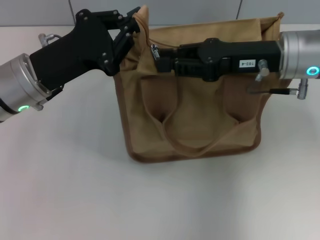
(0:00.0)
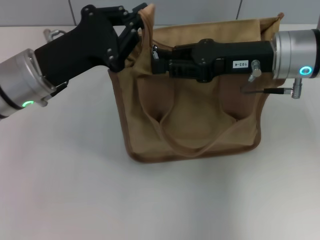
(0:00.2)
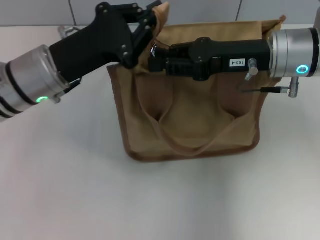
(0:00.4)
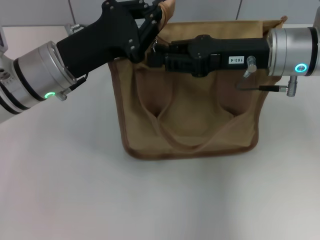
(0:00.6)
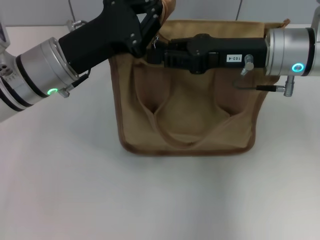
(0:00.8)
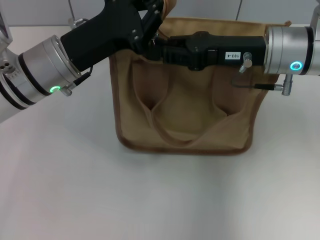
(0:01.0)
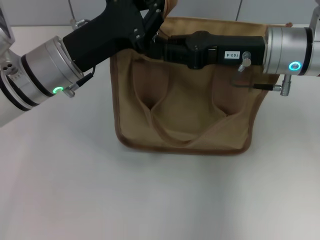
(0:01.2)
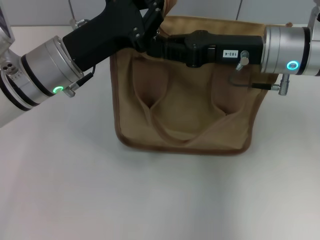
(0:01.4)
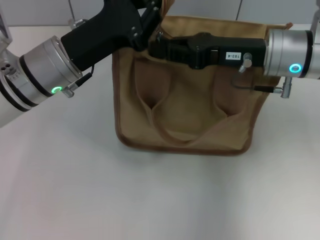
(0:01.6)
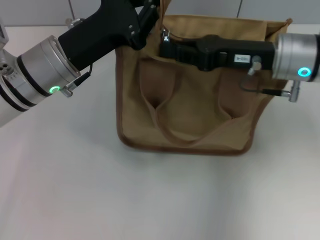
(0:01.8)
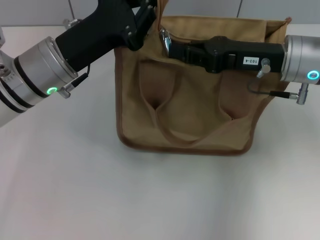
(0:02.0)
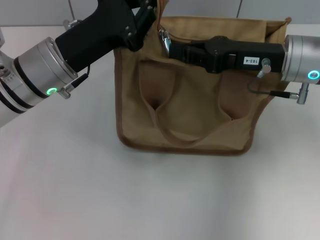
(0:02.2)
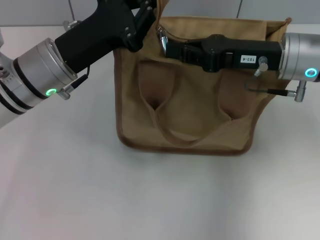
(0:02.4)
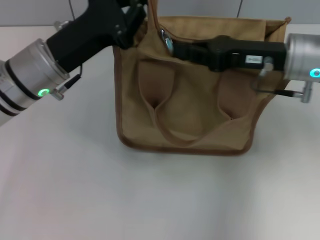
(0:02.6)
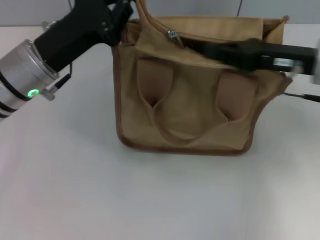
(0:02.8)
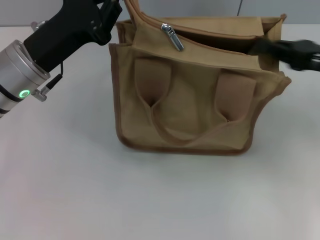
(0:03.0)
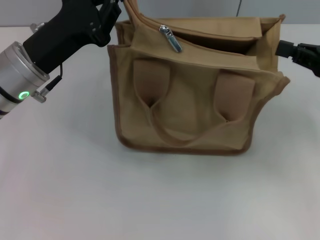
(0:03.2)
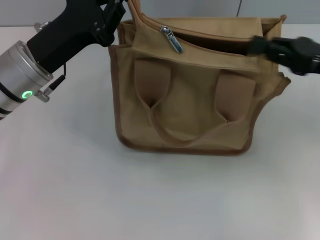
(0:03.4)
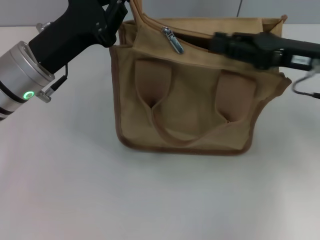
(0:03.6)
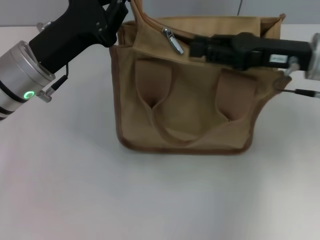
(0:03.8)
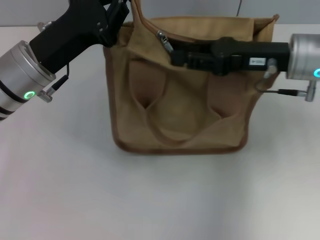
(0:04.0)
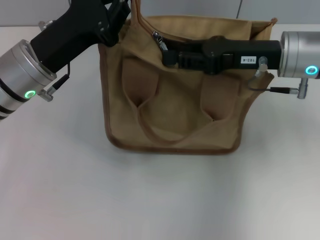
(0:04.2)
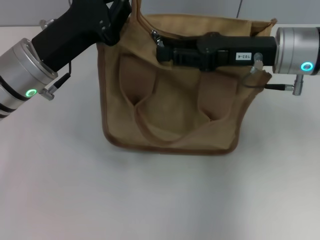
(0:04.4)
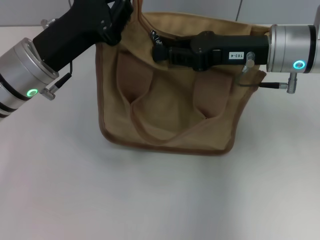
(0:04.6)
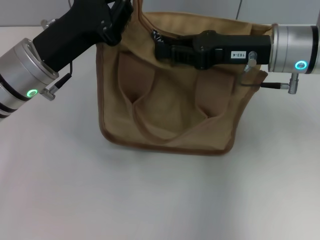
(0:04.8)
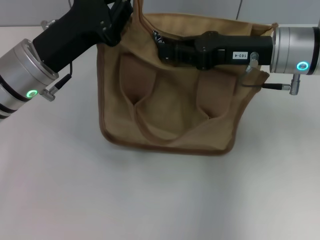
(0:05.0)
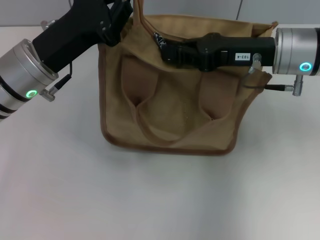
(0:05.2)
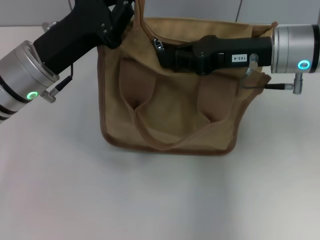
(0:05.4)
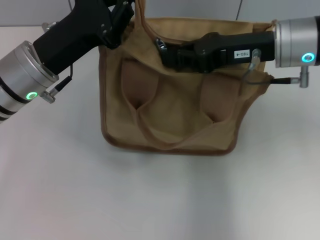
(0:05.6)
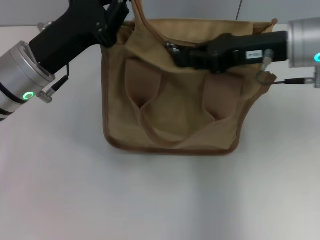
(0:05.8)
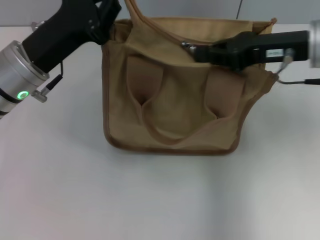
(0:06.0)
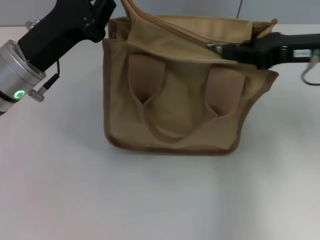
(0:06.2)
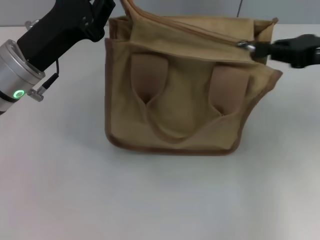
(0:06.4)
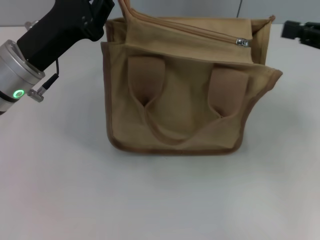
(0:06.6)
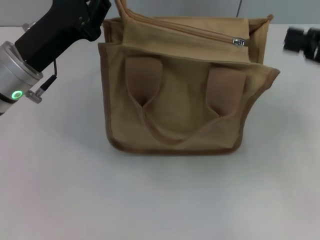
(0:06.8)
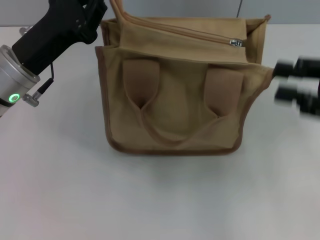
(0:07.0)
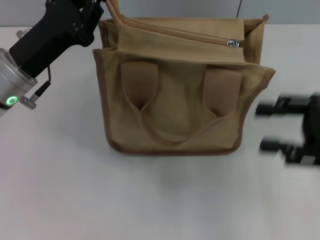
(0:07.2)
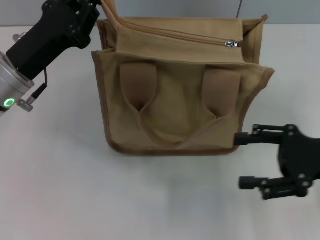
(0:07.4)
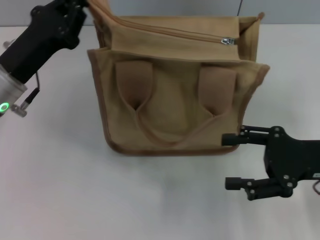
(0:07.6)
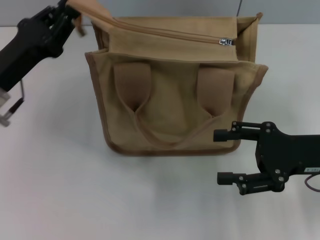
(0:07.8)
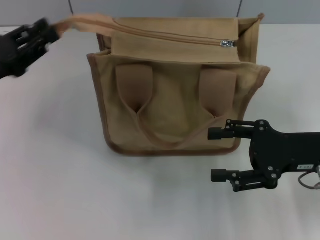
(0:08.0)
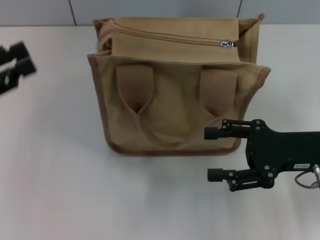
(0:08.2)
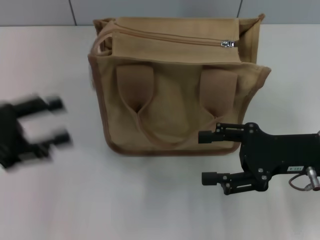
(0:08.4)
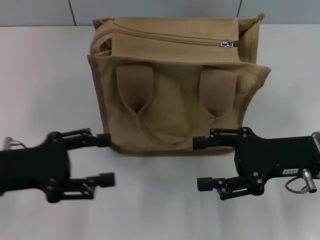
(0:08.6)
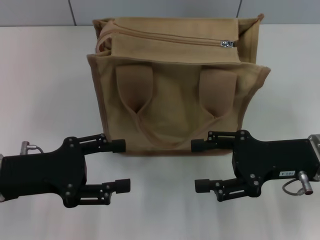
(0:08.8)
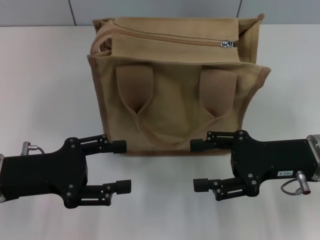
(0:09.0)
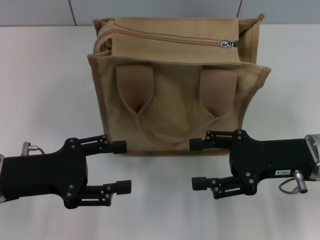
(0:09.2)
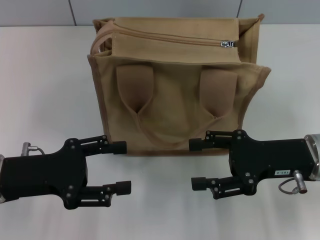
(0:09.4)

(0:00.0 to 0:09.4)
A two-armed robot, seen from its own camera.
Step, 0:00.0 - 0:06.4: Pull up the zipper with your right hand.
Step, 0:06.6 - 0:08.0: Grab the zipper with your left hand.
0:01.6 - 0:03.2: The right gripper is displaced to the right and backward by approximately 15 cm.
0:03.2 - 0:04.8: The right gripper shifts about 15 cm to the left and forward.
0:04.8 - 0:06.2: The right gripper moves to the right, approximately 10 cm.
0:06.2 - 0:07.8: The left gripper changes place by about 5 cm. The right gripper heads downward and backward, covering roughly 15 cm, and opens.
0:07.8 - 0:09.4: The left gripper moves backward, approximately 10 cm, travels to the left and back again, some 10 cm each way, and opens.

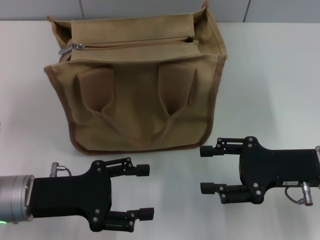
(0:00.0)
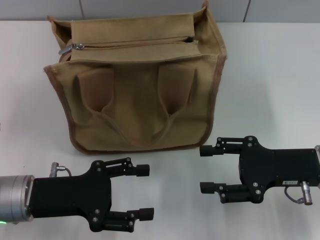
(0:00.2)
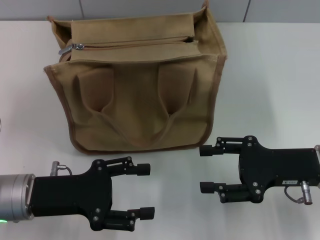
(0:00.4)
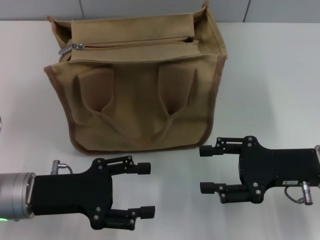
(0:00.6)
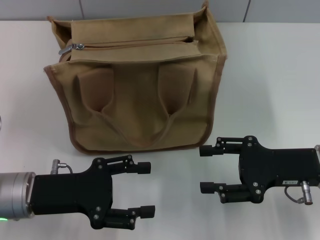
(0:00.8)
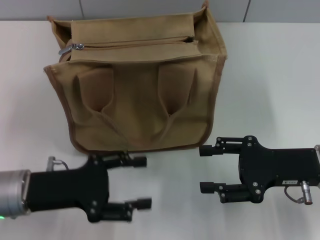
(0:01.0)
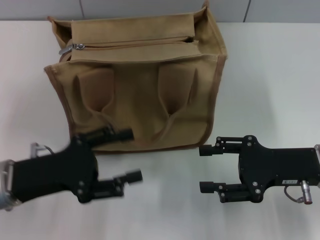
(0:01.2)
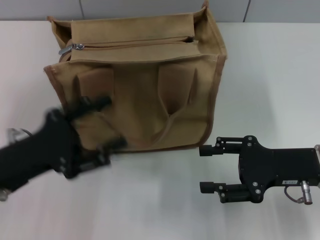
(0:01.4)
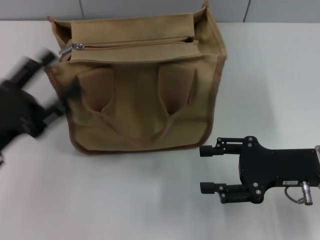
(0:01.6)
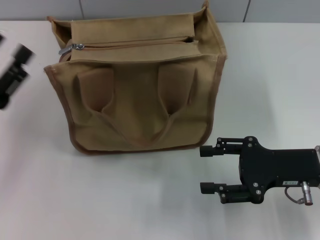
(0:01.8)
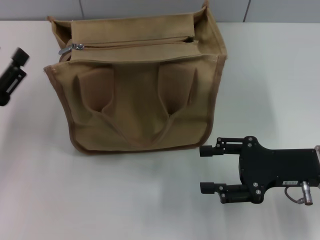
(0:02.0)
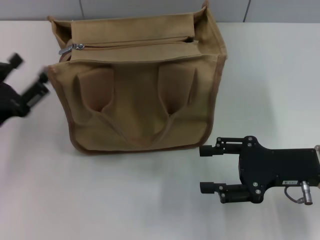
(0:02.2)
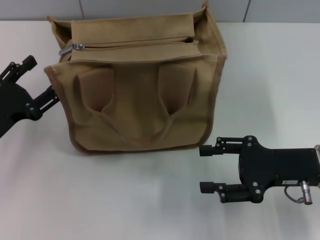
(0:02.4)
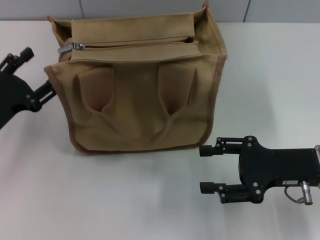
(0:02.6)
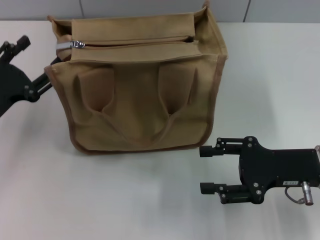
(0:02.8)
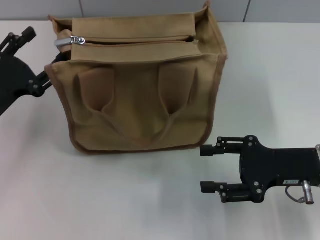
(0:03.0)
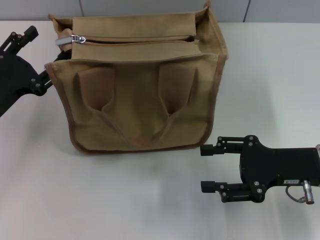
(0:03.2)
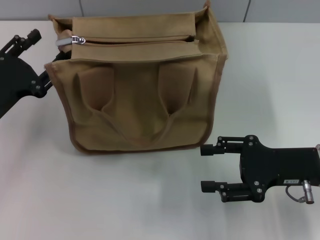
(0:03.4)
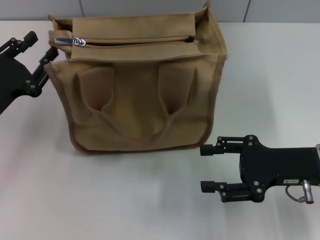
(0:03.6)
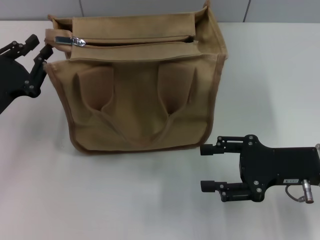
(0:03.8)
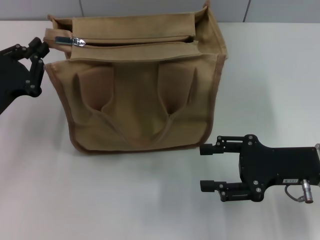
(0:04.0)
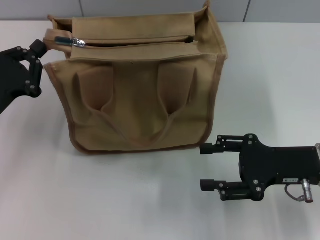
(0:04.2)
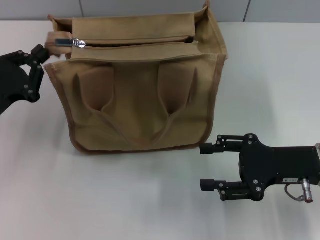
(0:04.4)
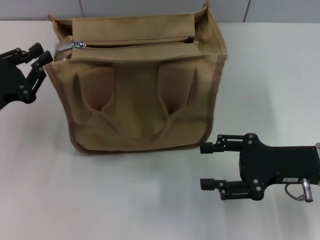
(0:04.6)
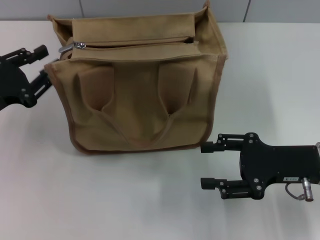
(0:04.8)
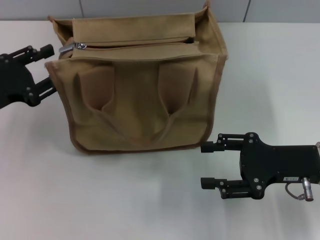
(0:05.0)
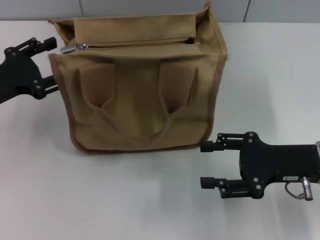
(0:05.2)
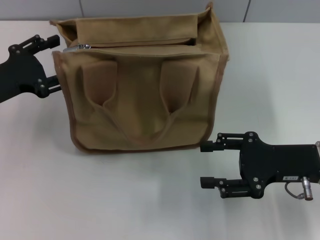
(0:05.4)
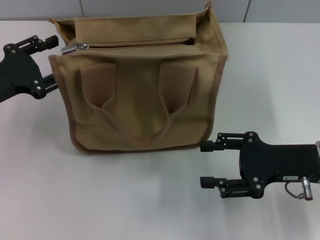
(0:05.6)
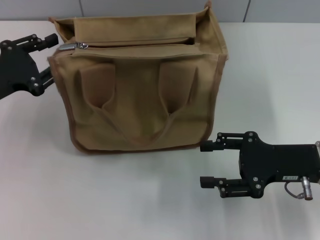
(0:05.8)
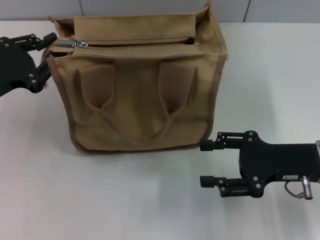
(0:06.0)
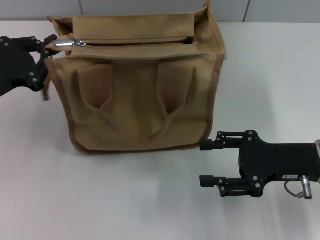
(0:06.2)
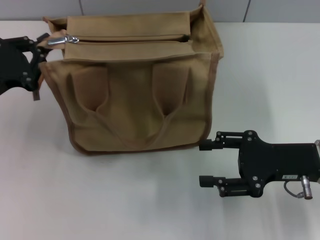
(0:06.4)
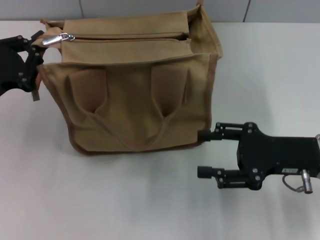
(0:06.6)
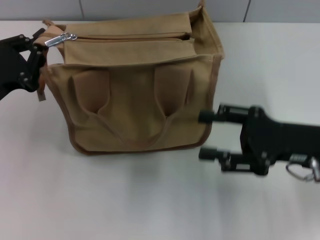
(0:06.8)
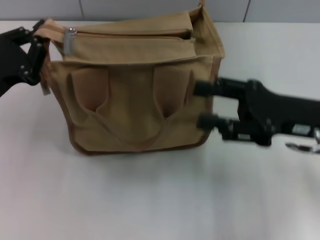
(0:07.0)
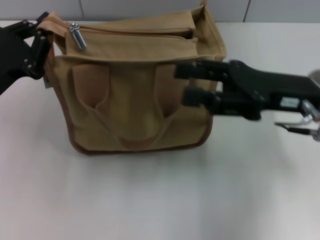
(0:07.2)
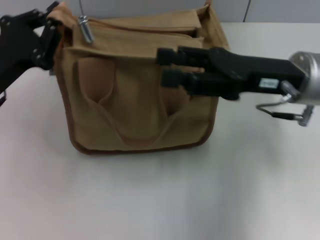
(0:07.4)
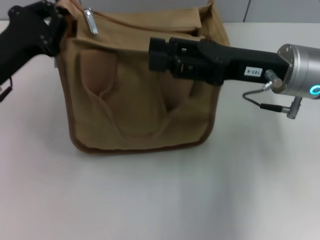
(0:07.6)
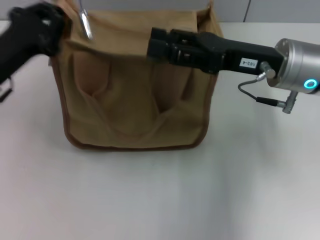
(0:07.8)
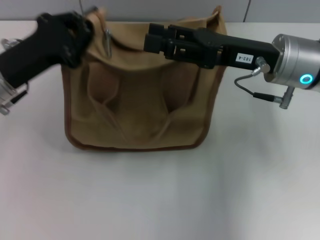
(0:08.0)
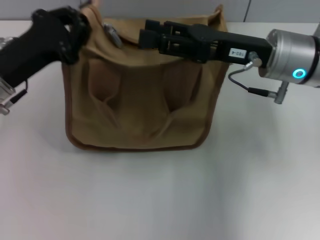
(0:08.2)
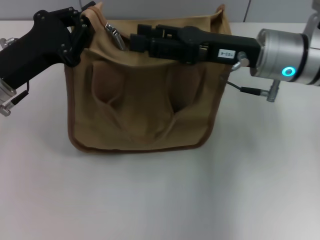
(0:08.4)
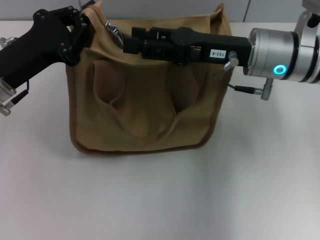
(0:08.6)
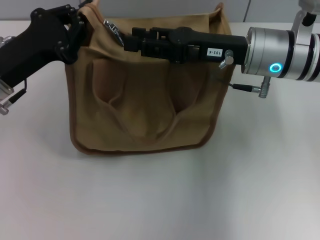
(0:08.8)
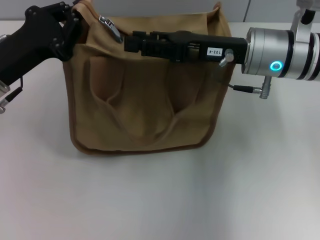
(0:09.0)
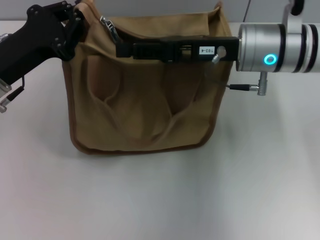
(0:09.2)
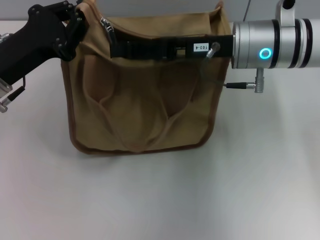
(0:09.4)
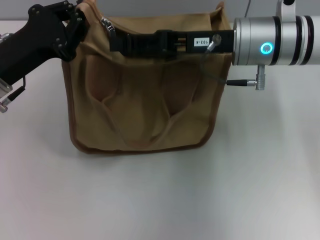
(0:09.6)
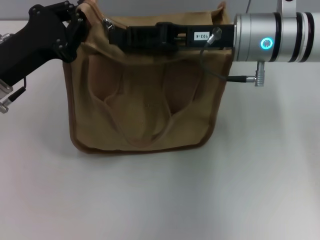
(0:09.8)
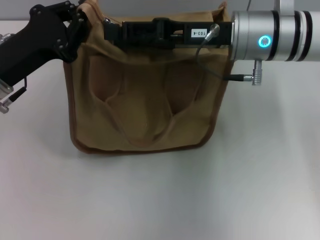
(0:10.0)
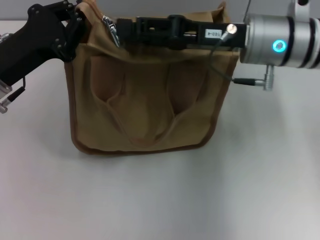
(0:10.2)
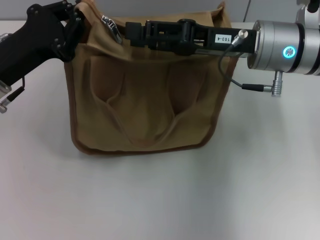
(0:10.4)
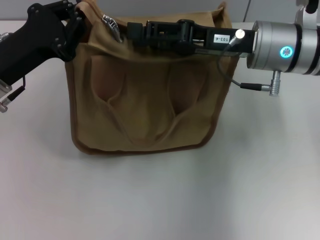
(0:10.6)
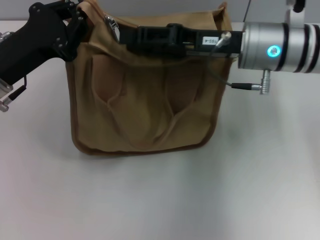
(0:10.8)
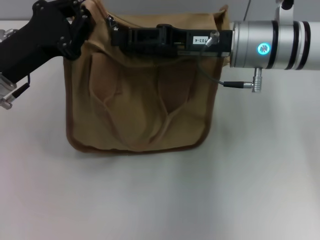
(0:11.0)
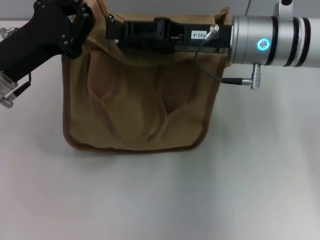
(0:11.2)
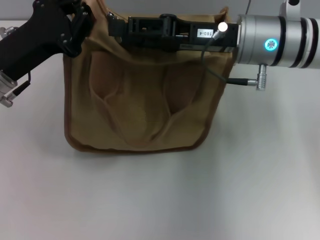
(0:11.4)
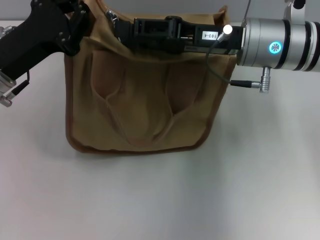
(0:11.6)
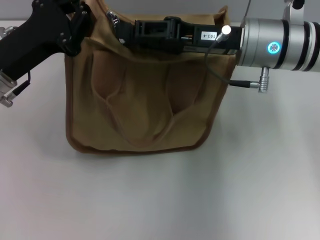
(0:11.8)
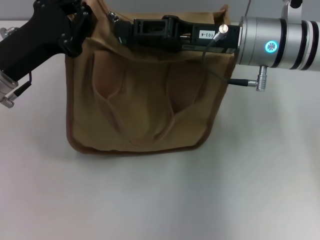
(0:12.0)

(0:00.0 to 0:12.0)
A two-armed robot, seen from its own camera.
0:00.0 - 0:01.6: The left gripper changes place by approximately 5 cm.
0:01.6 - 0:03.0: The left gripper goes roughly 5 cm forward.
0:03.0 - 0:04.4: The left gripper closes.
0:04.4 - 0:06.0: The left gripper opens up.
0:06.0 - 0:07.6: The left gripper closes. The right gripper goes some 10 cm upward, forward and to the left.
0:07.6 - 0:09.0: The grippers stay close to where they were, moving slightly.
0:10.4 - 0:12.0: The grippers stay close to where they were, moving slightly.

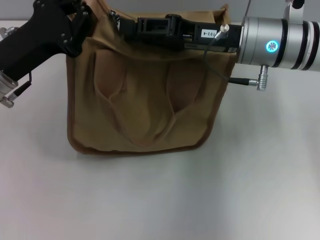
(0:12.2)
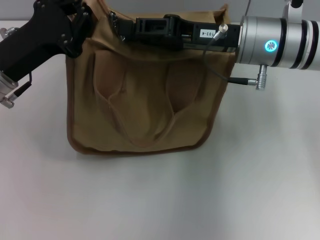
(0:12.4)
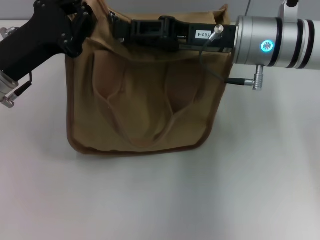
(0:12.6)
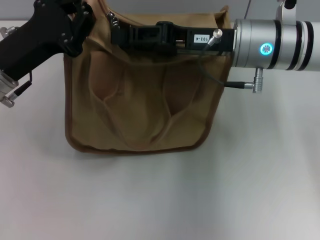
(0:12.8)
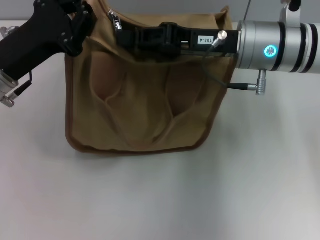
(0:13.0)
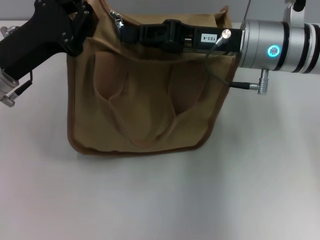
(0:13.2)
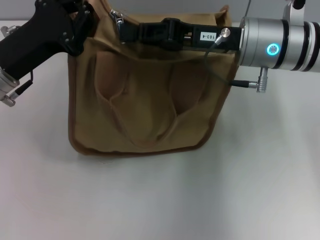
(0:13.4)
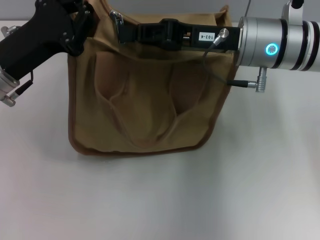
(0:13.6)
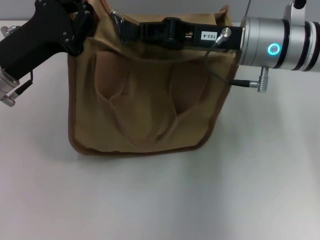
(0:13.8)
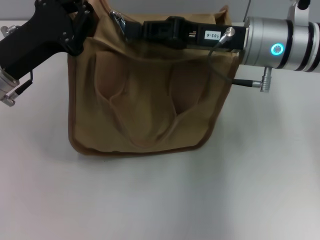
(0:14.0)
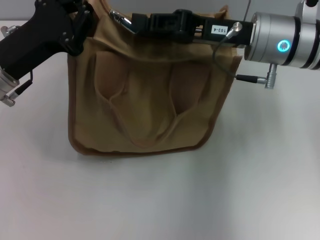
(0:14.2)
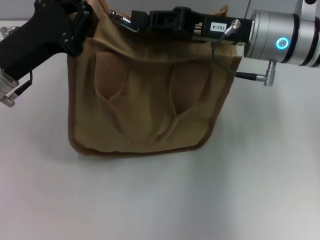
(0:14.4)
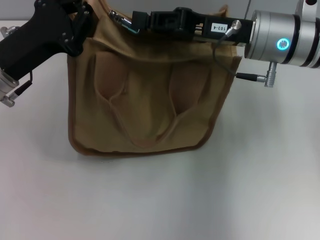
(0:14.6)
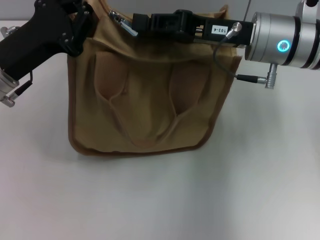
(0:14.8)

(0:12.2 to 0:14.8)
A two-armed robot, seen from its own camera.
0:12.2 - 0:13.4: The right gripper closes.
0:13.4 - 0:14.8: The two grippers keep their place.
